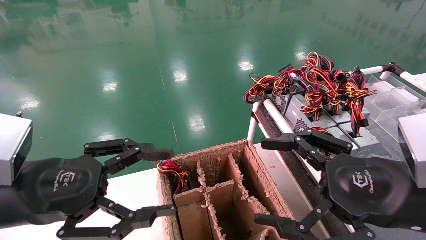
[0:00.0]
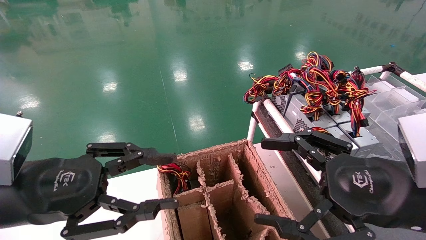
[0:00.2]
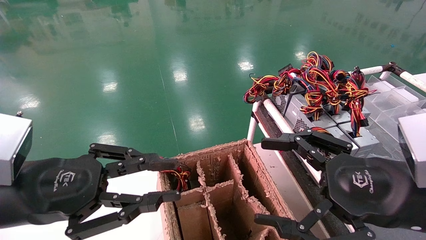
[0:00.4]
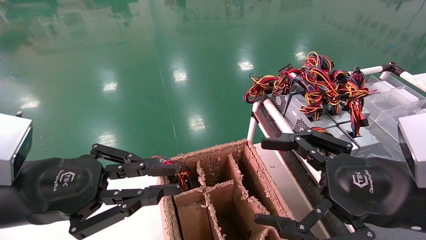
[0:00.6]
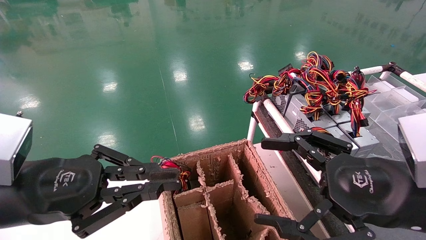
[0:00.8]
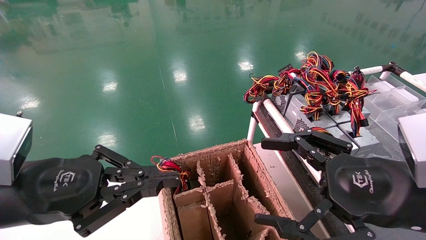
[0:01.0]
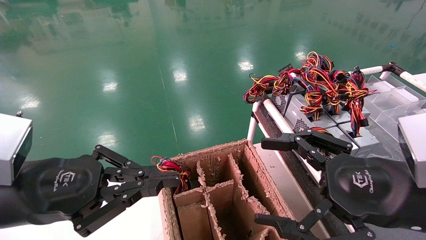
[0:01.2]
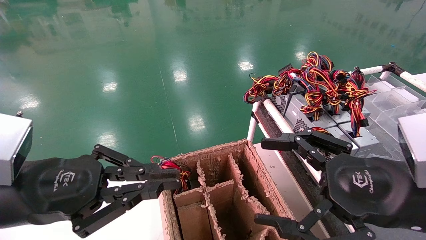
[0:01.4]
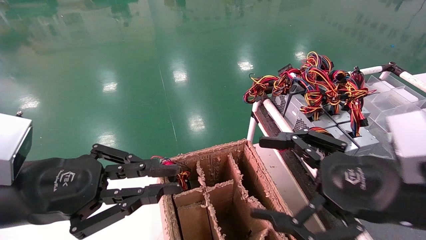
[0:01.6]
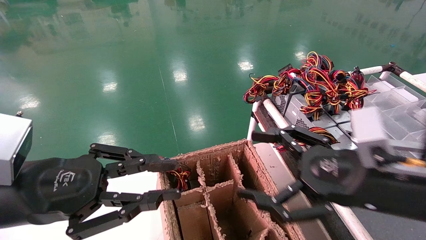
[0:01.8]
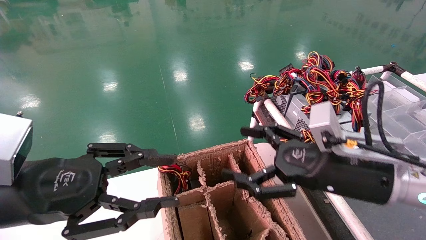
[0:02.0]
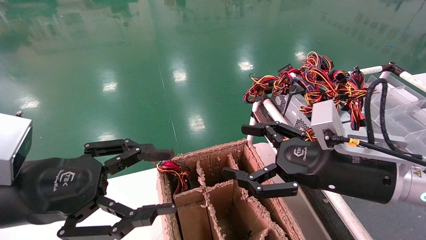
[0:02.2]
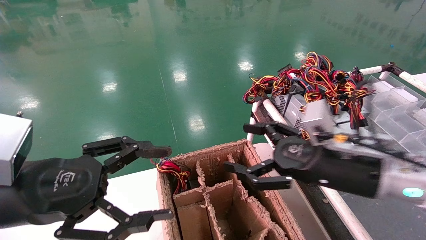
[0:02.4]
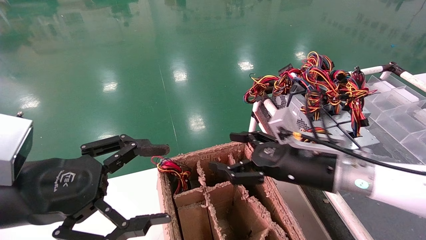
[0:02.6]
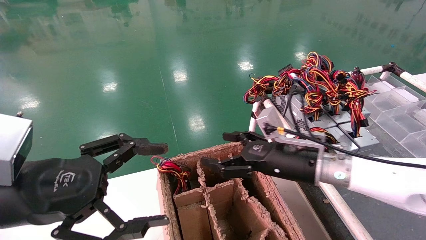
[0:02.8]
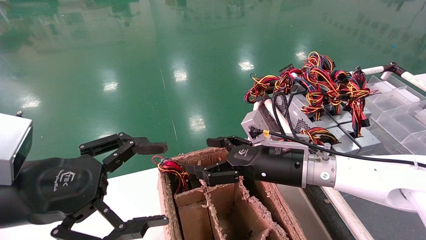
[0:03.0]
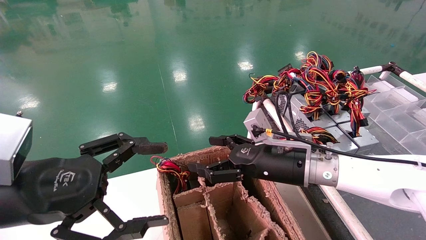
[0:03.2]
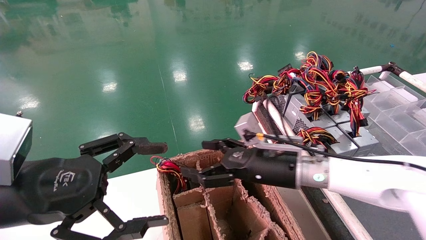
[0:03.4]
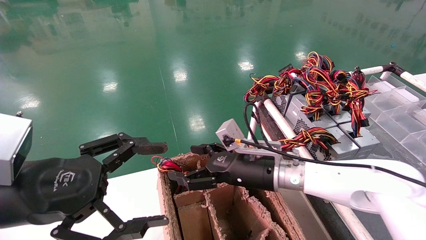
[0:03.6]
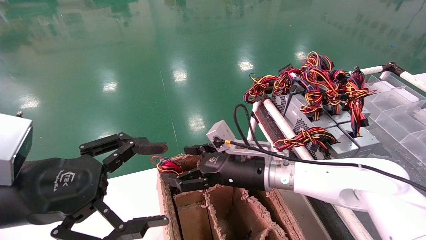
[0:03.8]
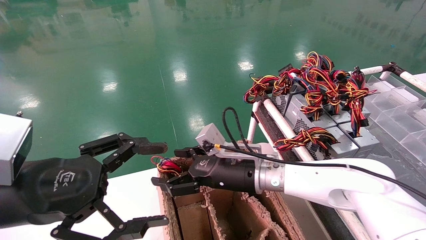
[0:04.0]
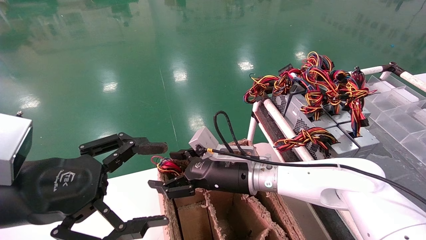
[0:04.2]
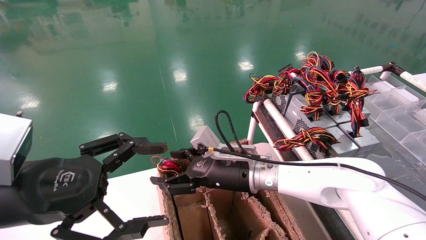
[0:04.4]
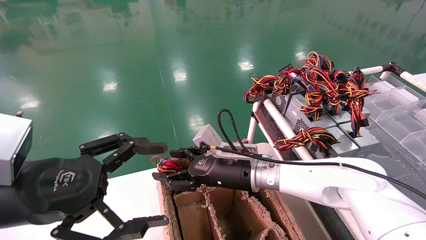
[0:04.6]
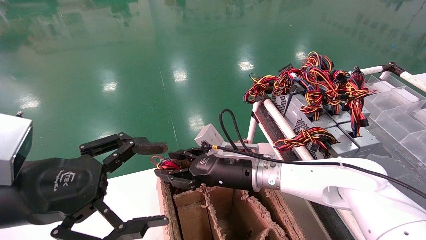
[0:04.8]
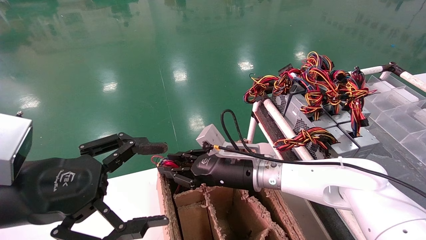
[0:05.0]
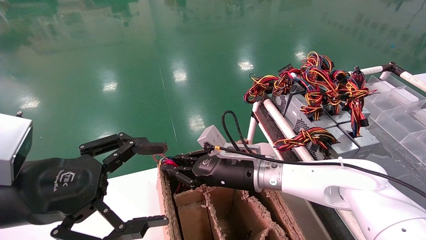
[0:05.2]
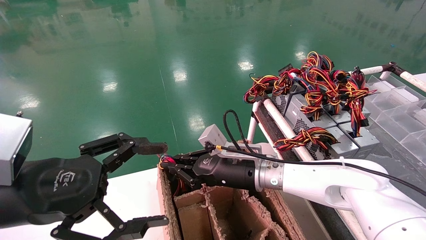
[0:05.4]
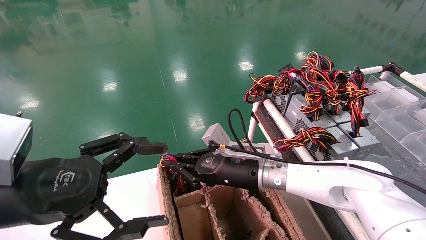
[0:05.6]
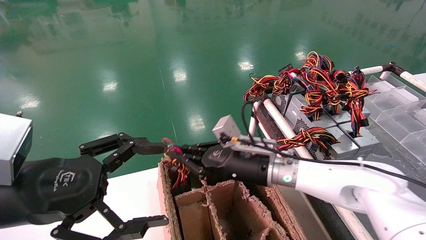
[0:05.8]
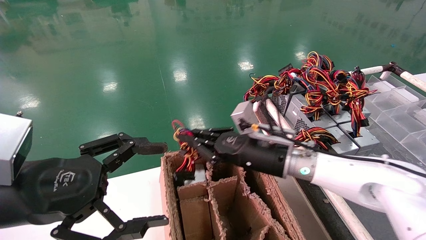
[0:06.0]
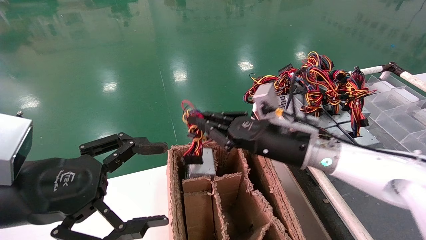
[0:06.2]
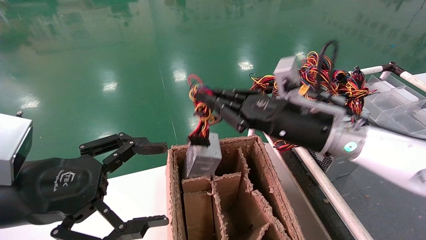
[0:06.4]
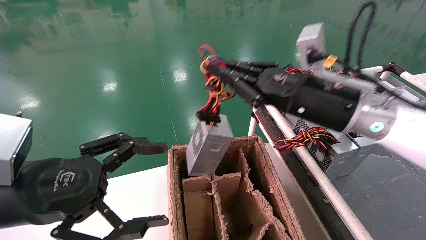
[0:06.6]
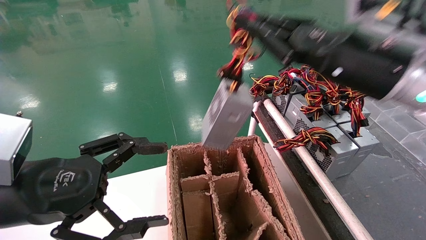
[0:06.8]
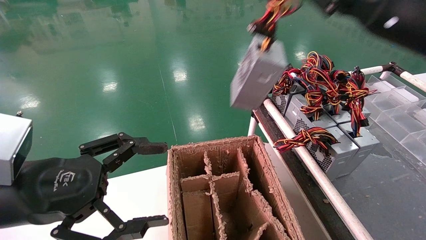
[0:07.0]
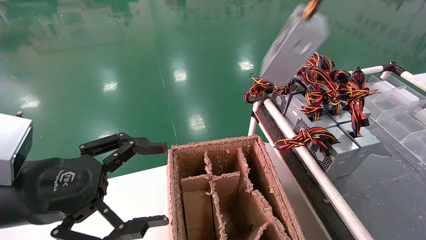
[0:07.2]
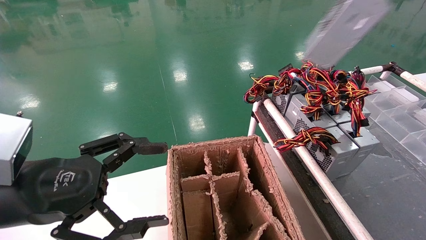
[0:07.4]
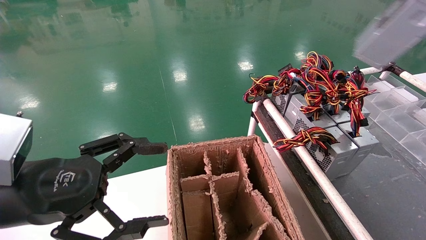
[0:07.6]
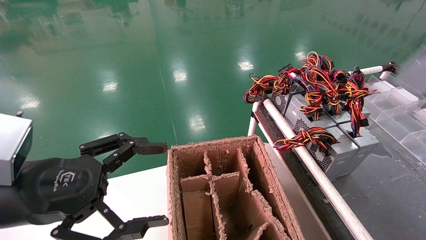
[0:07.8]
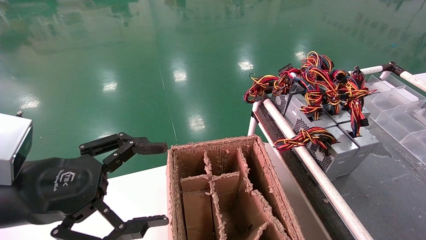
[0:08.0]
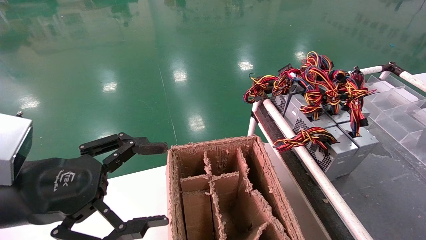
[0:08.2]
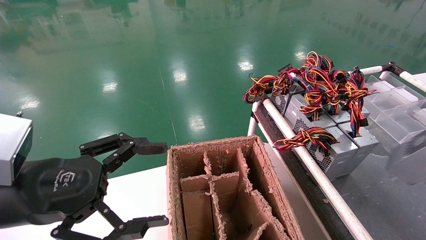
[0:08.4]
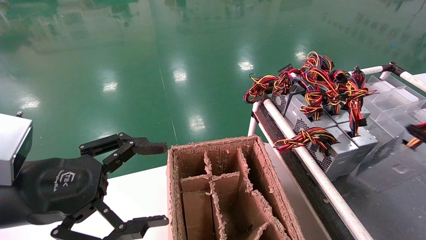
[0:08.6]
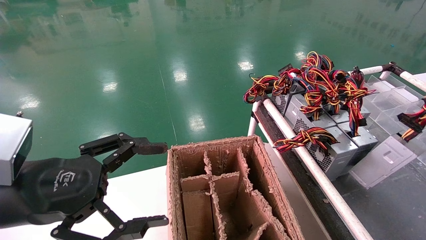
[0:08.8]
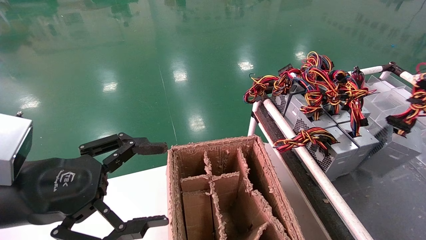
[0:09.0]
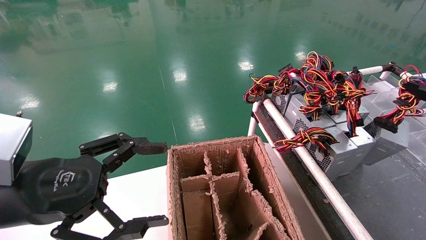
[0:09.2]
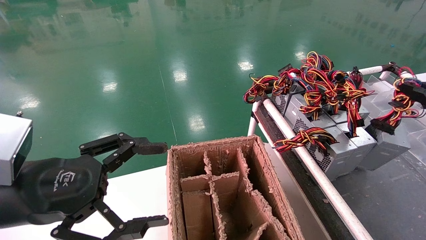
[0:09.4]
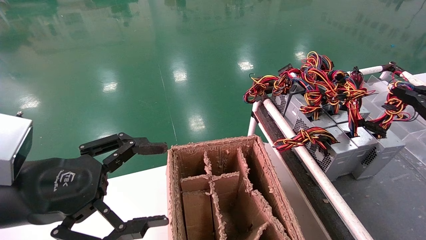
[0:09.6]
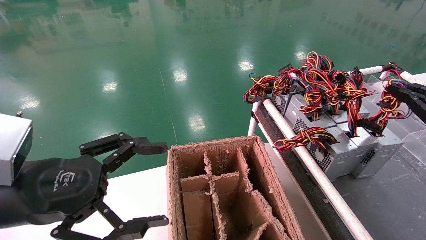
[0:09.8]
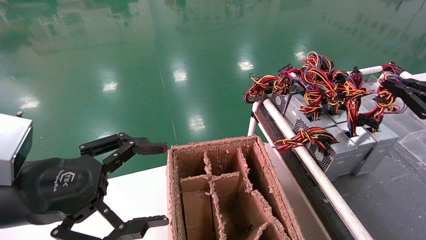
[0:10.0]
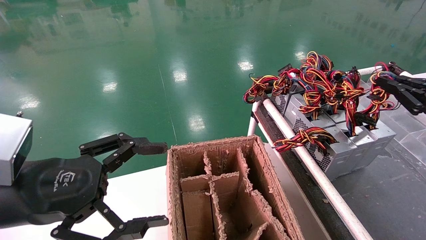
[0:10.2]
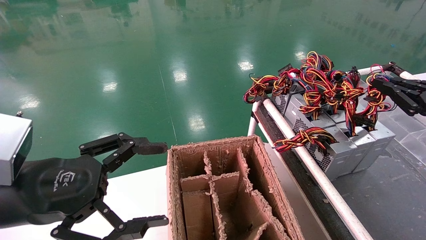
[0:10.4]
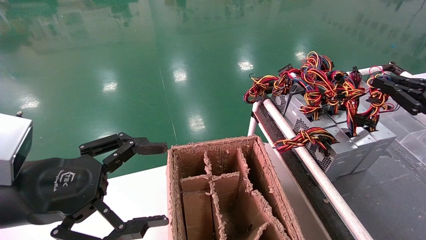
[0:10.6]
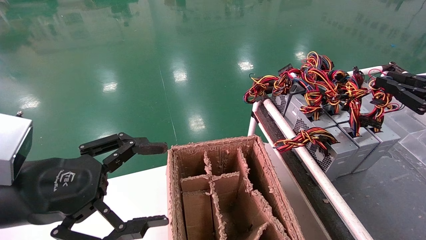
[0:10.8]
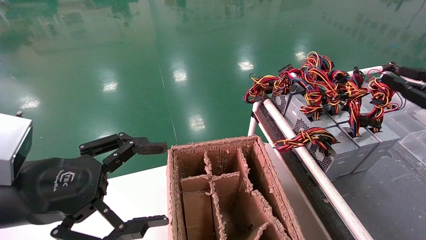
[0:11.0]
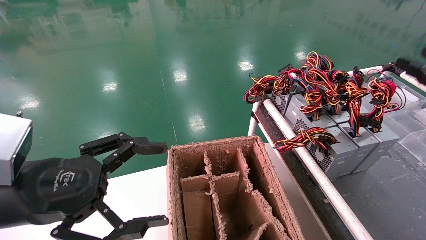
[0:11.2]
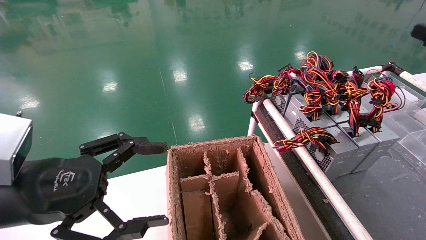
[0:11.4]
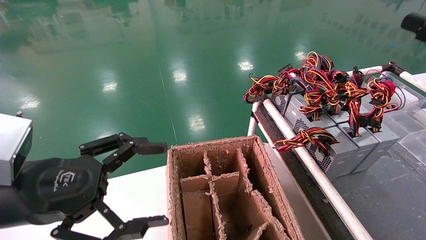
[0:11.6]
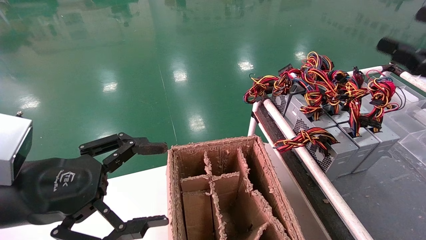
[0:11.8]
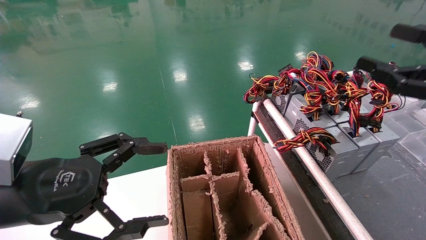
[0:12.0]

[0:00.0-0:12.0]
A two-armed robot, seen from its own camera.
Step, 0:01.0 to 0:05.6: Grab and lift the power supply from the large box.
Step, 0:05.8 to 0:10.6: Place the power supply on the operating table.
0:00.0 to 0:01.6: The left gripper closes its fingers.
0:01.6 to 0:03.0: The right gripper goes approximately 20 cm forward and to the left. Meanwhile the left gripper opens its fingers.
0:03.0 to 0:04.4: The right gripper heads to the left, covering about 10 cm.
0:04.4 to 0:06.0: The right gripper moves to the right, roughly 5 cm, and closes its fingers.
0:06.0 to 0:07.6: The right gripper moves to the right, upward and backward, approximately 50 cm.
0:07.6 to 0:09.0: The right gripper moves downward, about 20 cm.
0:09.0 to 0:10.4: The right gripper shifts about 5 cm forward.
0:10.4 to 0:12.0: The right gripper travels backward and to the left by approximately 10 cm, and opens its fingers.

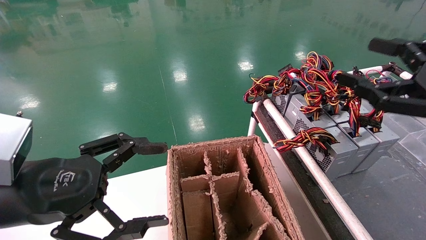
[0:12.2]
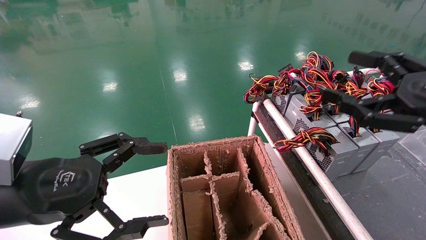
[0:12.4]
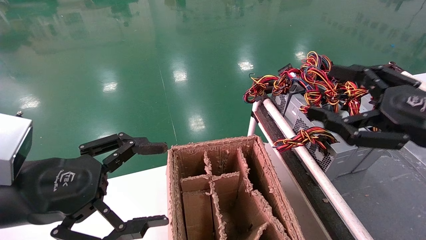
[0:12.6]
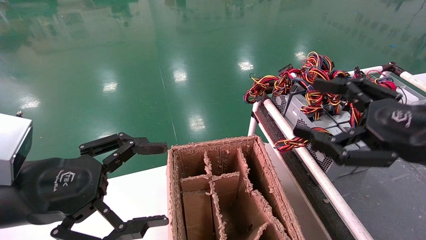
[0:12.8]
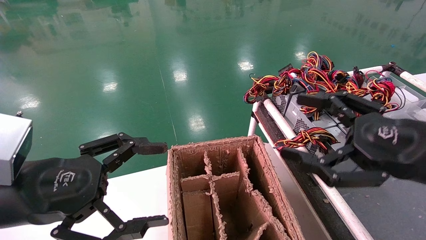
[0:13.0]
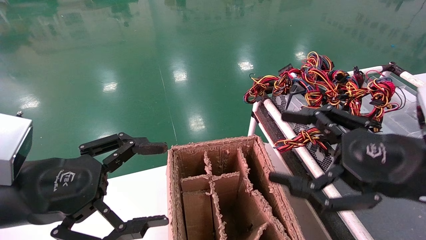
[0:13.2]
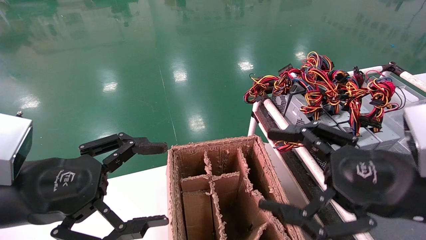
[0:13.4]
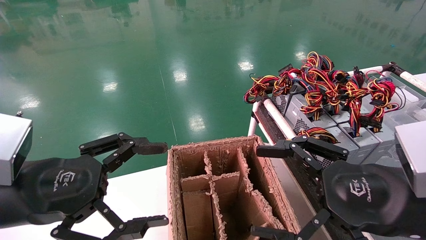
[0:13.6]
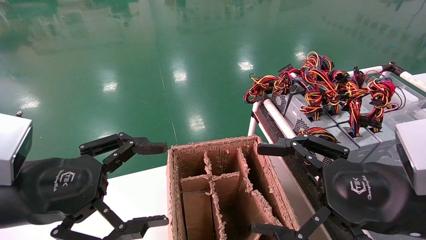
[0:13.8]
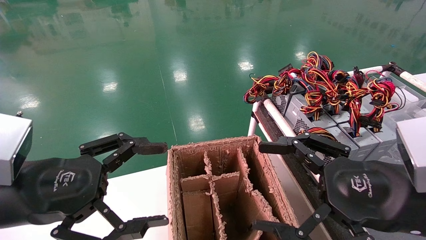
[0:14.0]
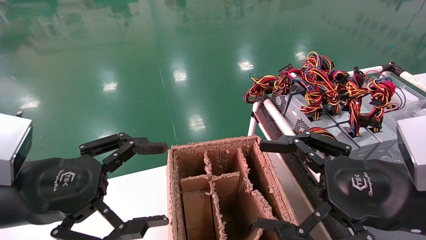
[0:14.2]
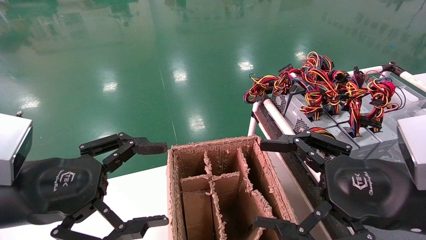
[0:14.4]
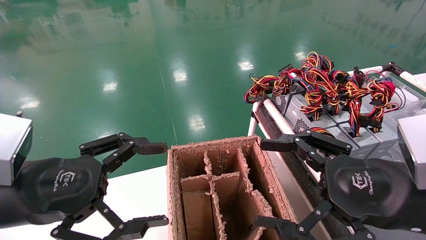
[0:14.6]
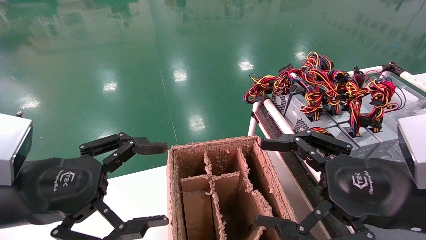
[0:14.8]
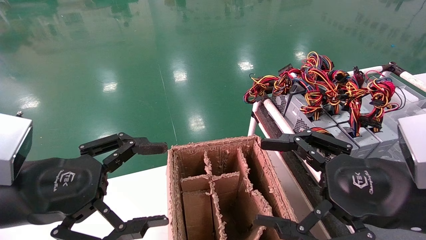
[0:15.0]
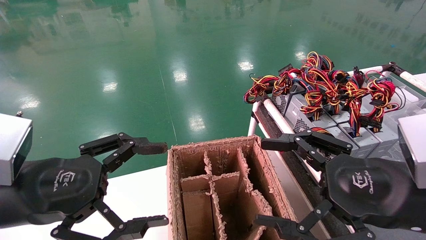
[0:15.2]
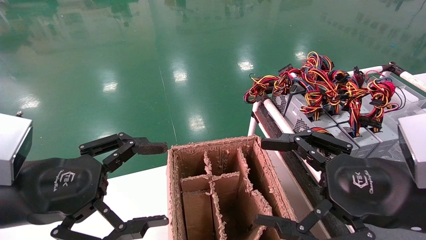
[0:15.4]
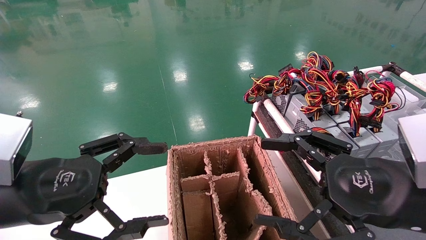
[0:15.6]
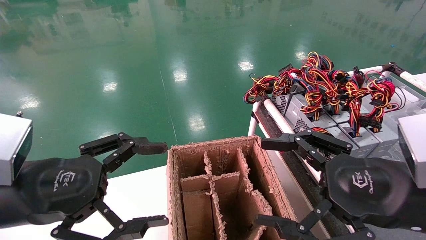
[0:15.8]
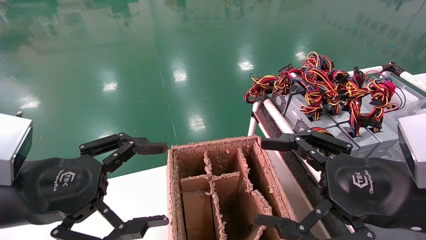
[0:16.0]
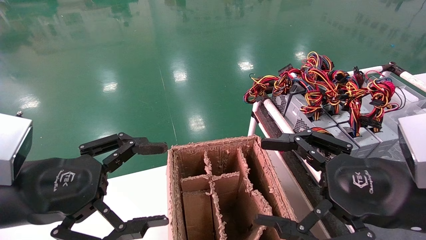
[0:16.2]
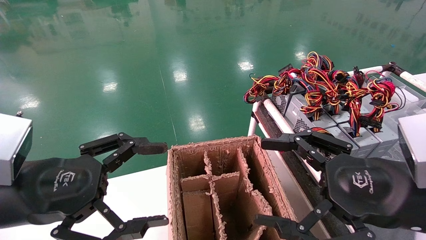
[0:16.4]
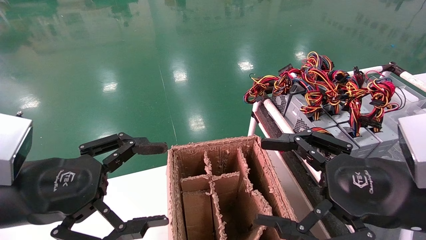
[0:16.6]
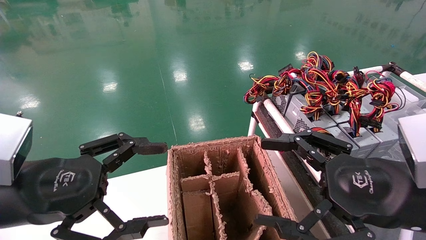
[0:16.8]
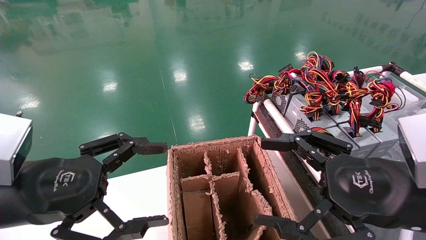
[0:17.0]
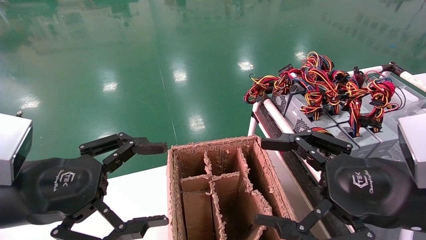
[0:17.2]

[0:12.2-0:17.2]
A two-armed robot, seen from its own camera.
0:12.2 to 0:13.8: The right gripper shifts about 15 cm to the left and downward.
0:13.8 to 0:17.2: The two grippers keep their place.
